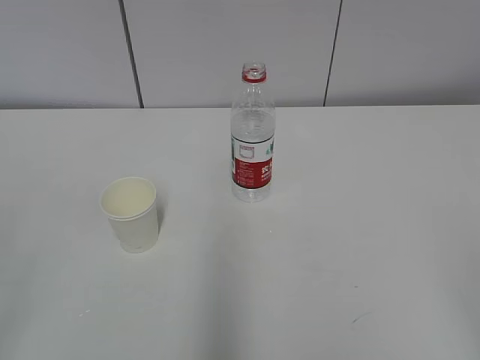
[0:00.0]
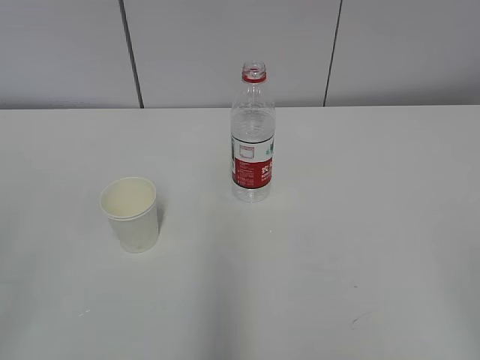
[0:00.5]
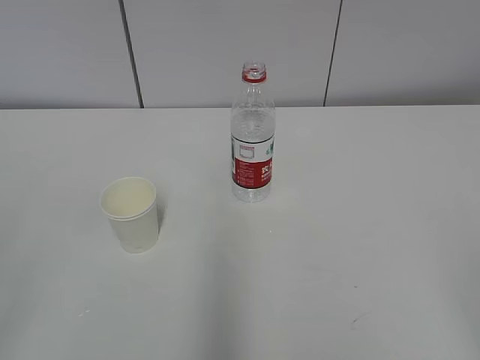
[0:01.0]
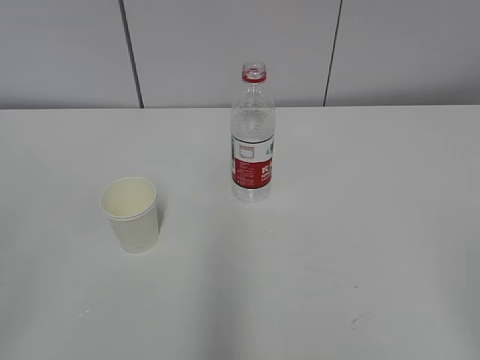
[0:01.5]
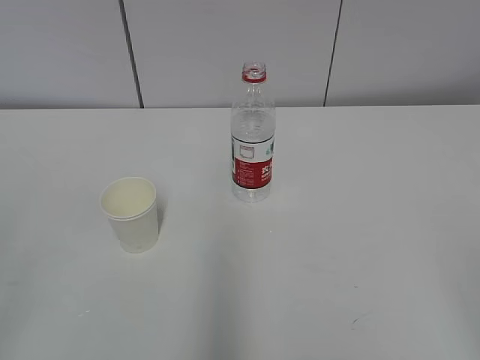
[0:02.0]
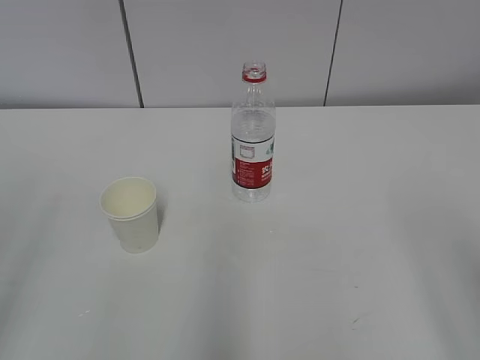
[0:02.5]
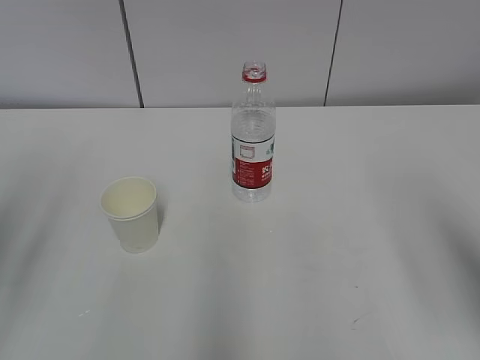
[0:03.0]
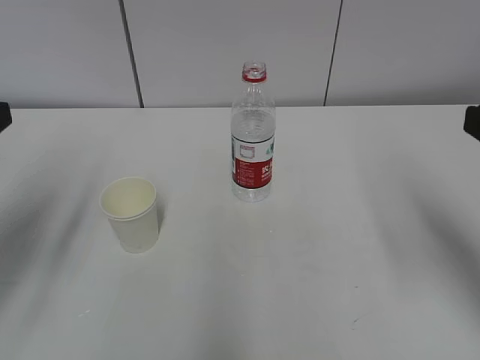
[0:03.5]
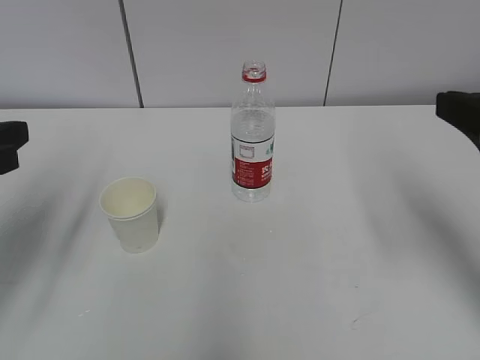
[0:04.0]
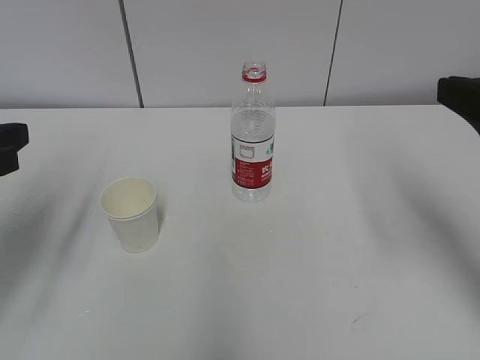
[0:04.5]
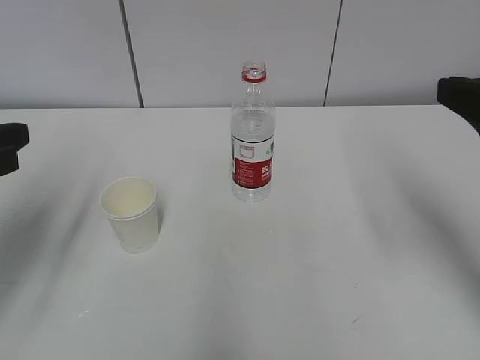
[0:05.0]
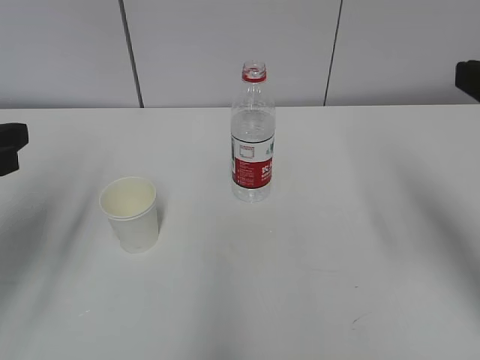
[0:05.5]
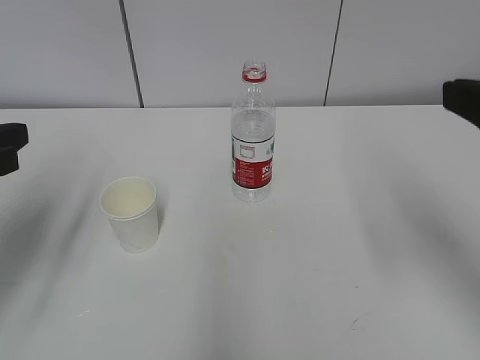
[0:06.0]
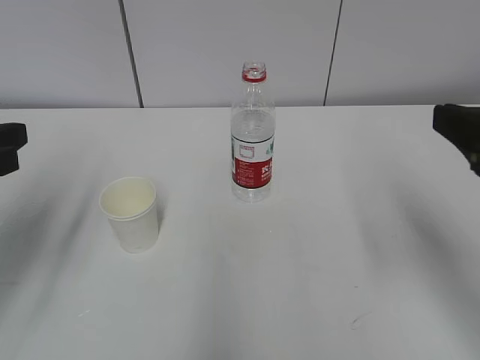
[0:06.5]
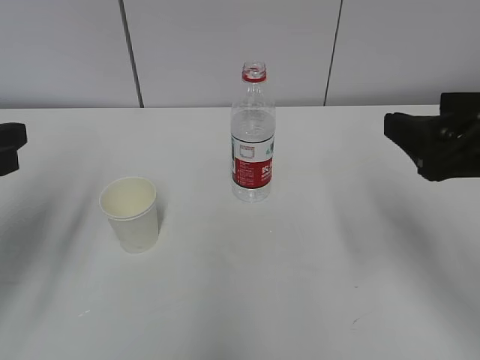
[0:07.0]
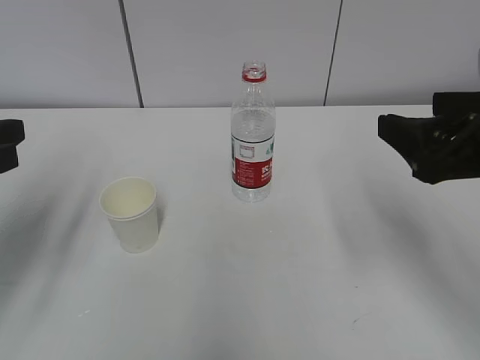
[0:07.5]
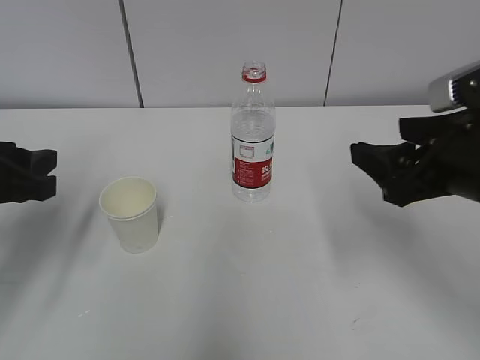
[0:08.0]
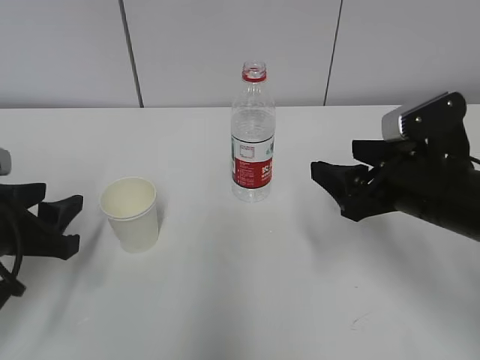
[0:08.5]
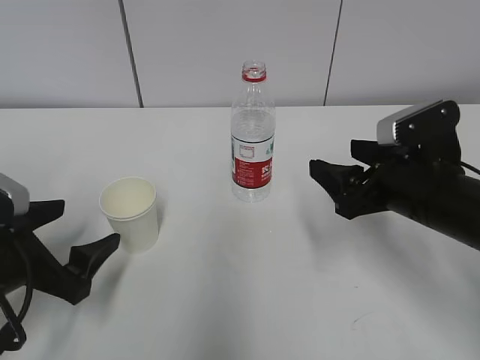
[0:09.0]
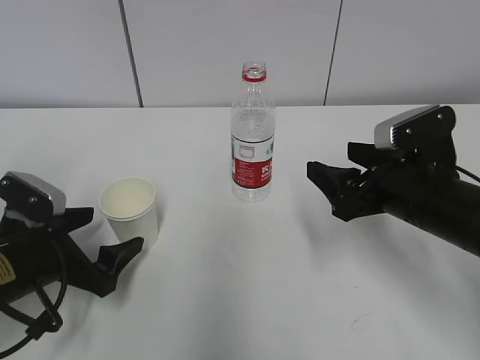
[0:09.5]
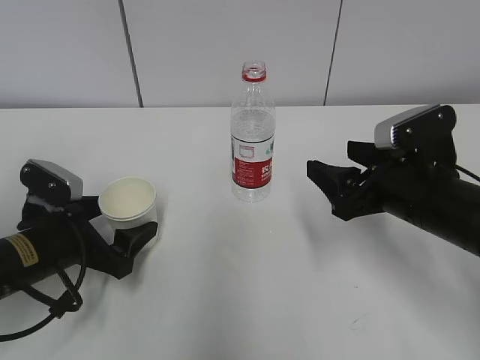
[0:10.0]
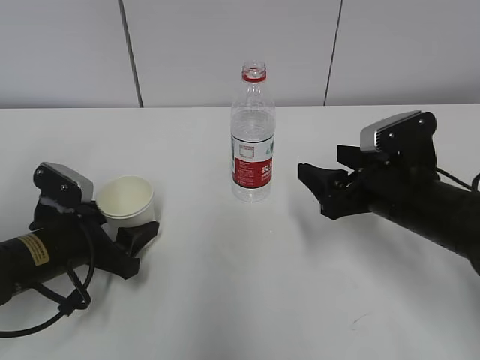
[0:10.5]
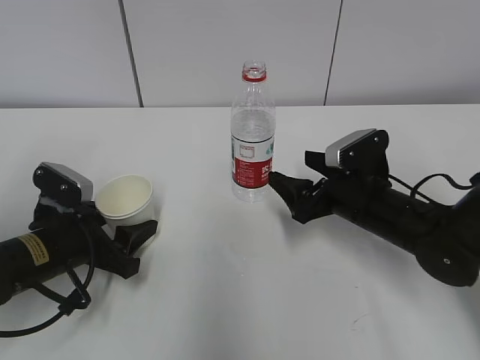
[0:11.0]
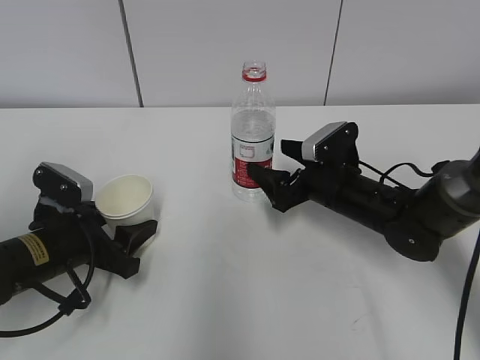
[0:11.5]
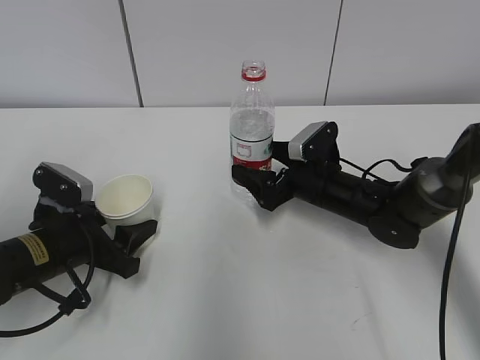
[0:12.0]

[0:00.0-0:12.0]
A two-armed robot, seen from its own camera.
Step, 0:00.0 to 0:09.5: Grab the paper cup with the left hand.
Step, 0:10.0 to 0:10.5: Grab the water bottle with the right hand.
0:02.0 to 0:04.0: Both grippers travel together forward, approximately 20 cm.
0:04.0 to 0:06.0: The grippers make only small movements.
0:06.0 to 0:08.0: The right gripper shifts approximately 10 cm downward.
0:08.0 to 0:10.0: The left gripper goes some 15 cm downward, and opens its fingers. Meanwhile the right gripper heads downward, covering approximately 5 cm.
0:10.0 to 0:12.0: The left gripper closes its fingers. Meanwhile the right gripper heads forward, downward and to the left, covering approximately 15 cm, and opens.

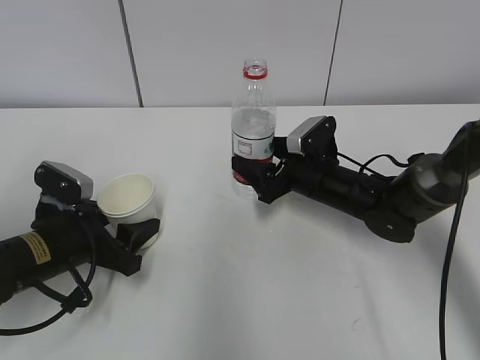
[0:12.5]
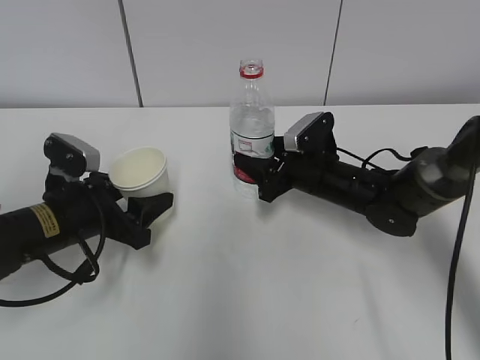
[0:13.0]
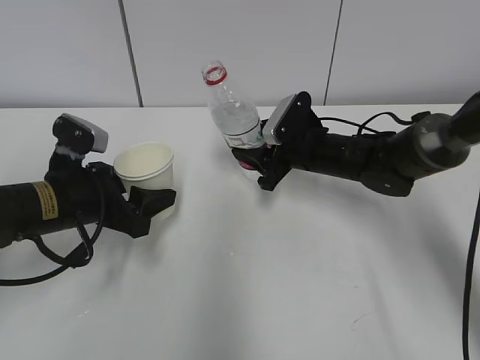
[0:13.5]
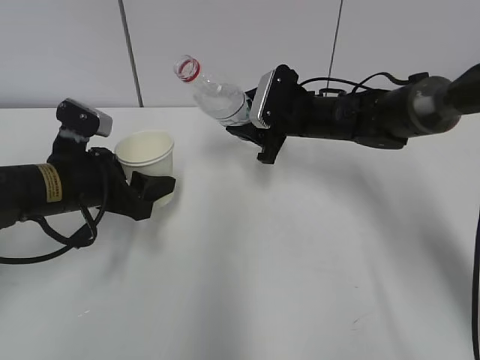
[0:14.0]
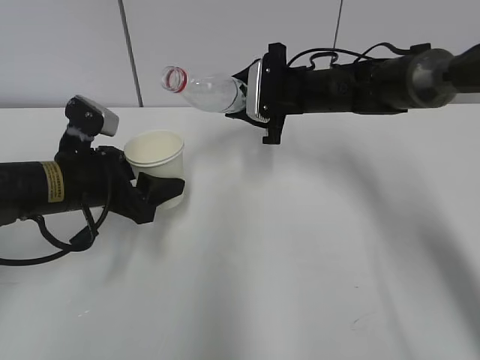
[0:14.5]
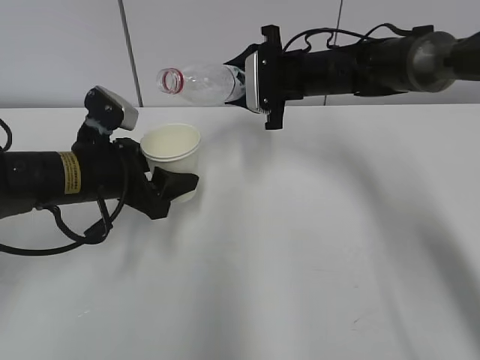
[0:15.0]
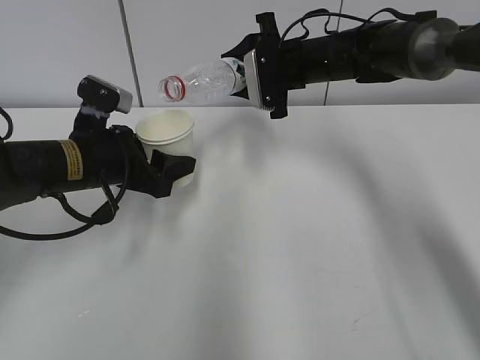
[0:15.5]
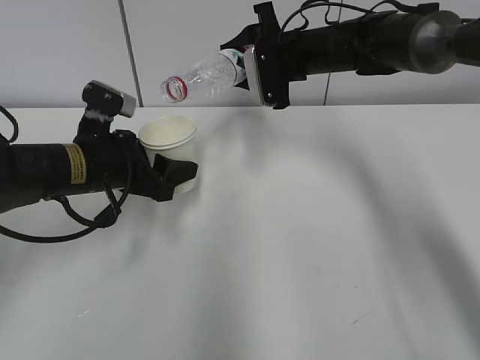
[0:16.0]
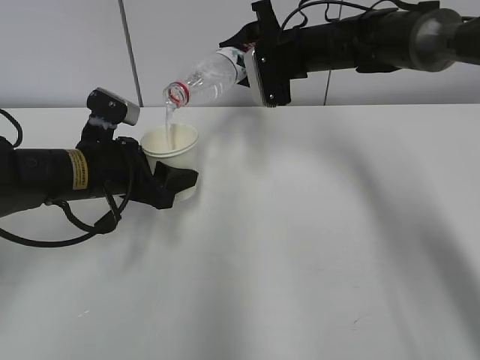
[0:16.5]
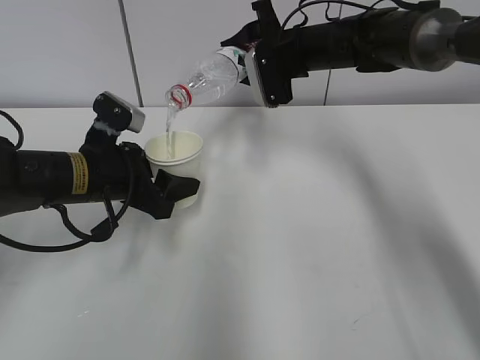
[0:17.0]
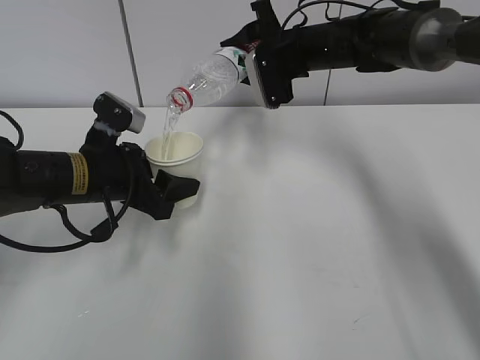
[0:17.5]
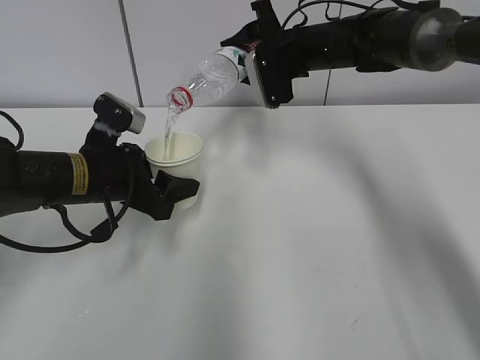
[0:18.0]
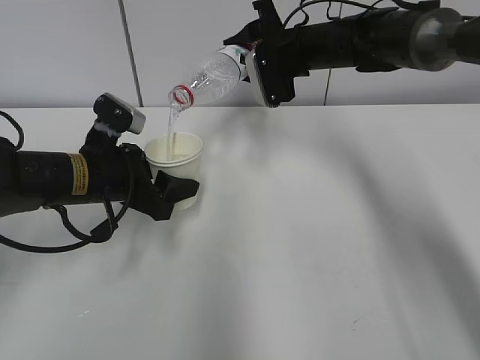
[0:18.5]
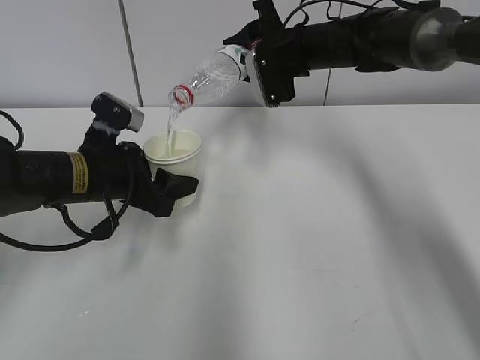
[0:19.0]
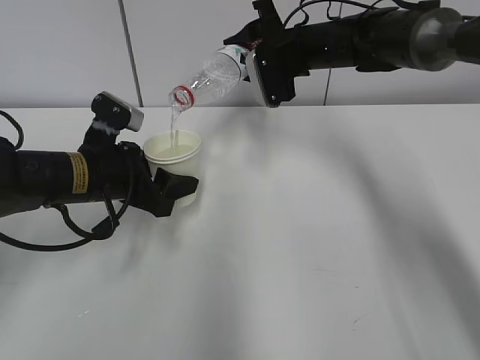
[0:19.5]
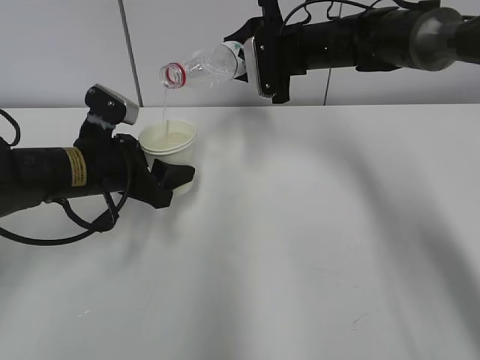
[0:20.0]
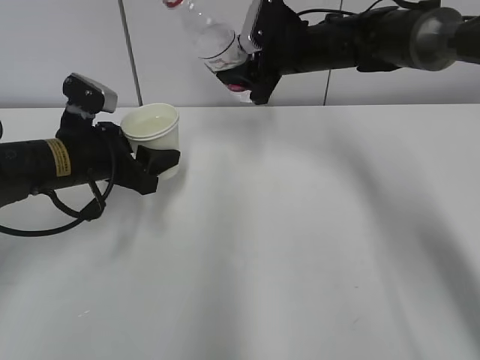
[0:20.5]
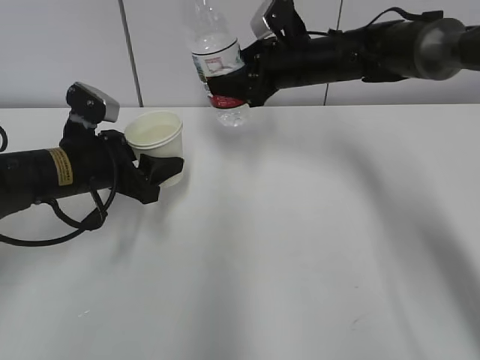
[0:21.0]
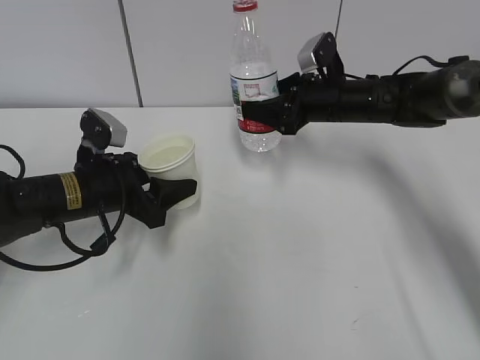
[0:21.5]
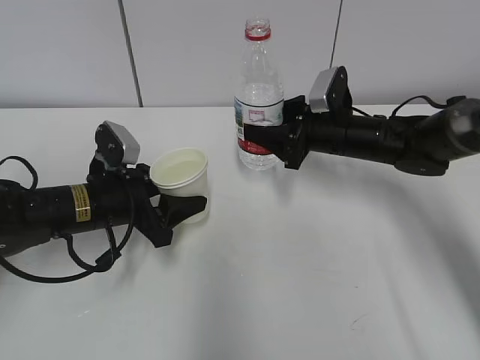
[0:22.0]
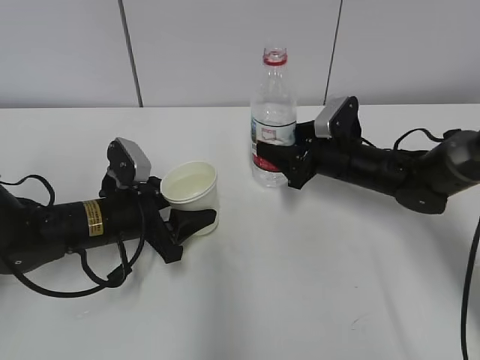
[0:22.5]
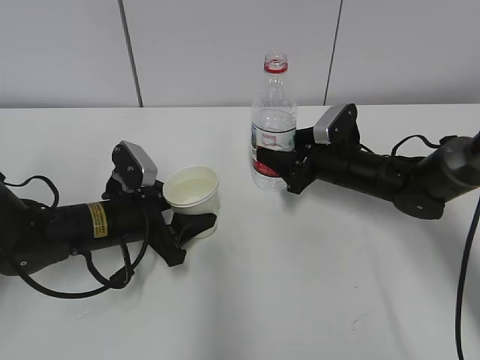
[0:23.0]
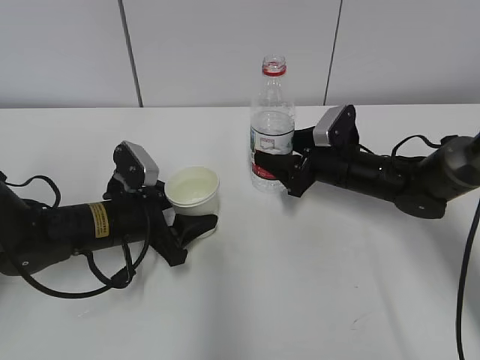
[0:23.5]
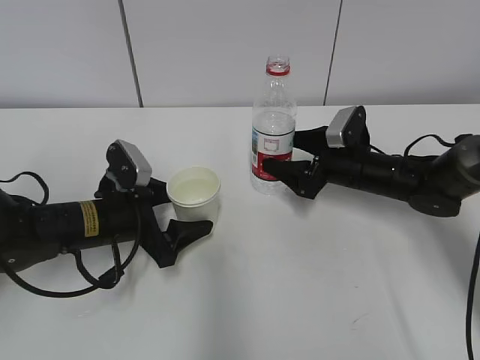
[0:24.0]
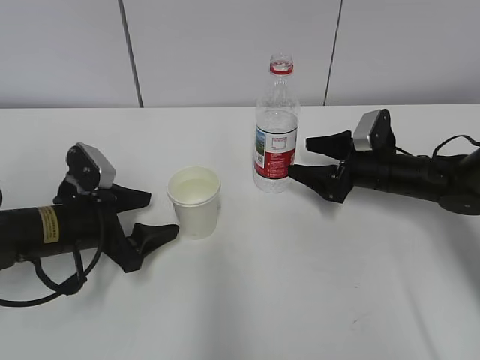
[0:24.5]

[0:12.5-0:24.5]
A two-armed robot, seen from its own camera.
Step, 0:13.5 to 0:16.5: Fill water with the left hand.
Step, 0:13.5 to 0:16.5: Pour water with the right hand.
Step, 0:18.0 to 0:19.5: Place the paper cup with the left hand.
0:12.5 to 0:14.5: The left gripper is displaced upward by some 5 cm; the right gripper heads upward and forward, covering some 15 cm, and closes.
0:14.5 to 0:16.5: The right gripper goes about 5 cm upward.
0:16.5 to 0:18.5: The two grippers keep their place.
0:20.5 to 0:22.5: The right gripper goes approximately 15 cm downward, backward and to the right, while the left gripper is displaced downward by roughly 5 cm.
0:22.5 to 0:24.5: The left gripper opens its fingers. The right gripper moves to the right, about 5 cm, and opens up.

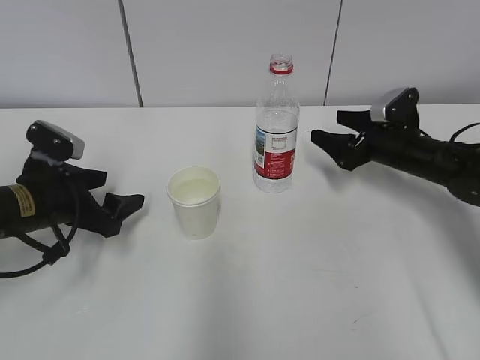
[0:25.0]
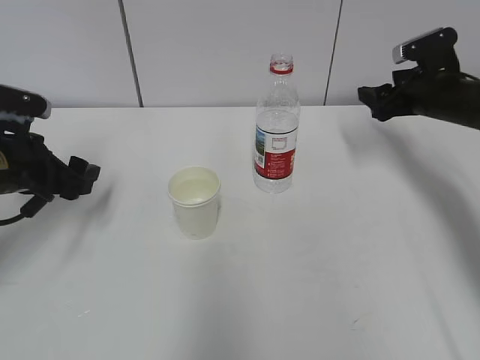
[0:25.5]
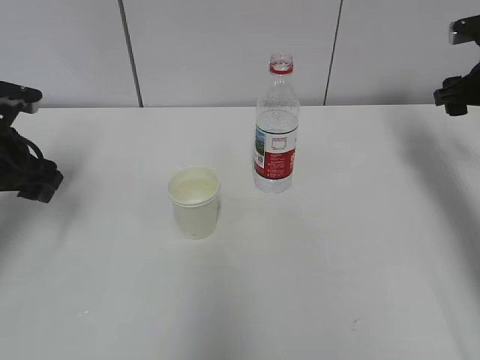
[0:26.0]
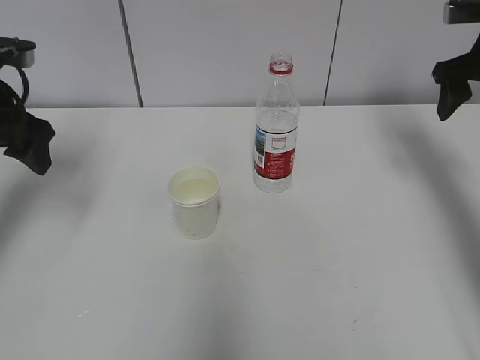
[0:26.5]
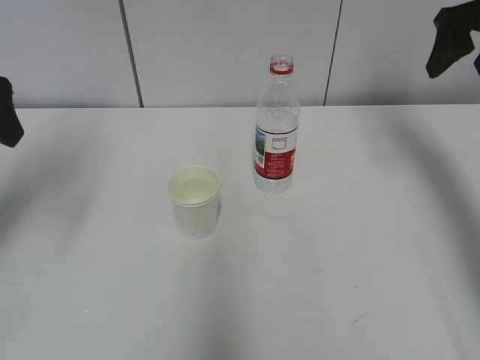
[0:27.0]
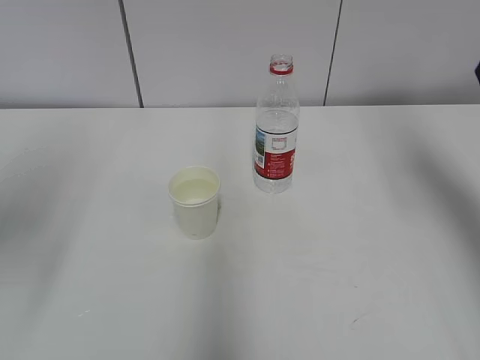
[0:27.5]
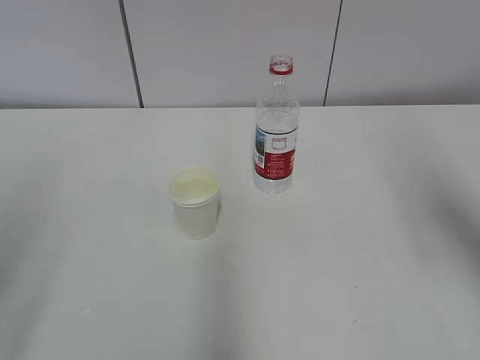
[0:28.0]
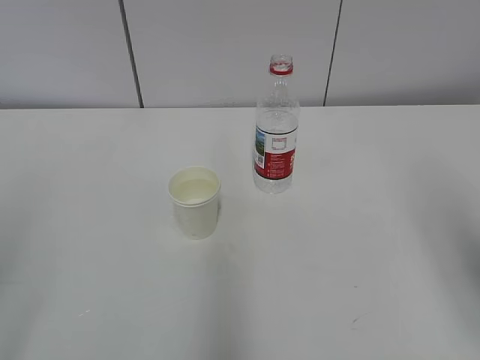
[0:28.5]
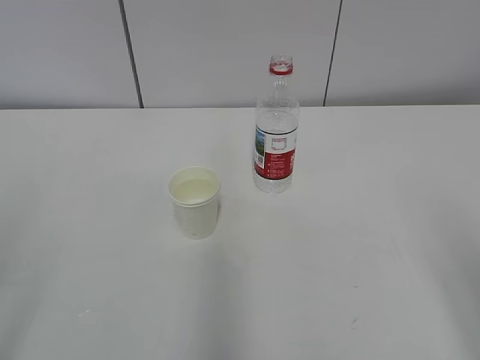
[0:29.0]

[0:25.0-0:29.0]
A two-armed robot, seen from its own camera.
0:25.0 to 0:27.0: The two grippers go roughly 25 cm upward.
0:27.0 to 0:29.0: The two grippers go about 30 cm backward.
